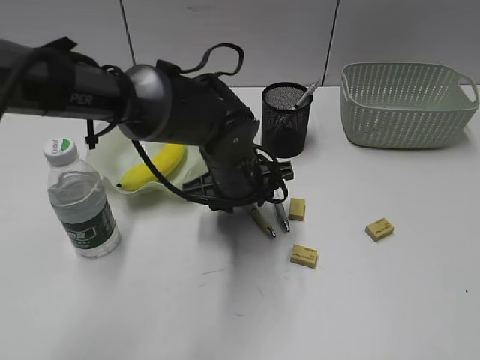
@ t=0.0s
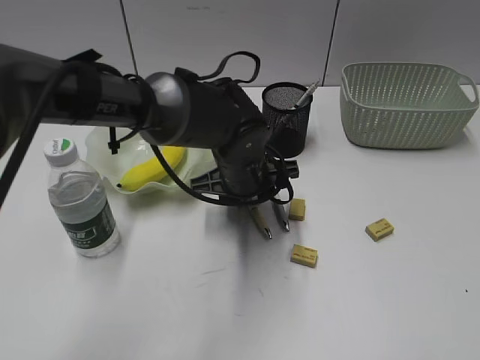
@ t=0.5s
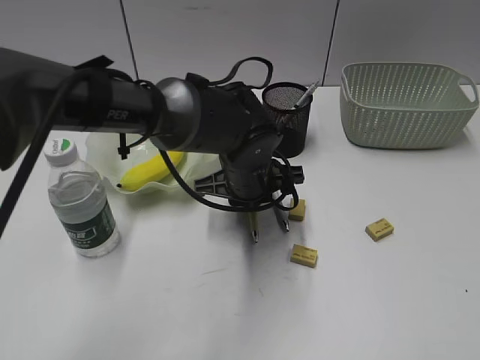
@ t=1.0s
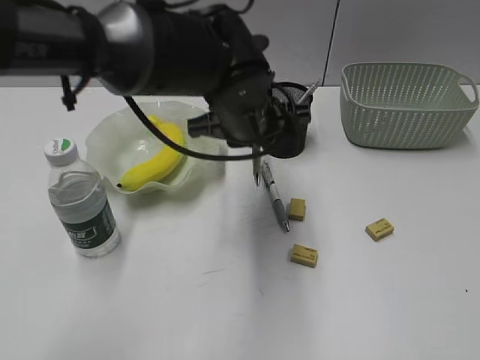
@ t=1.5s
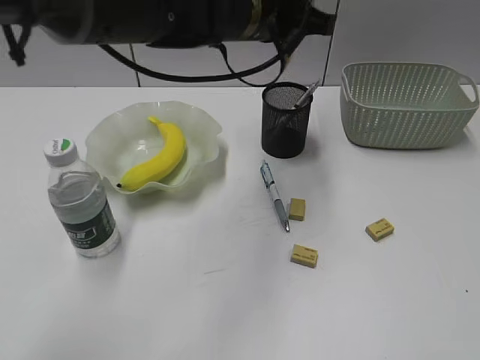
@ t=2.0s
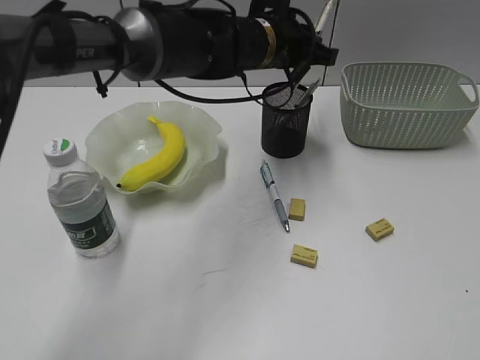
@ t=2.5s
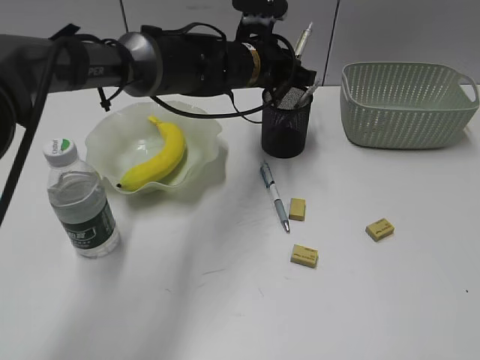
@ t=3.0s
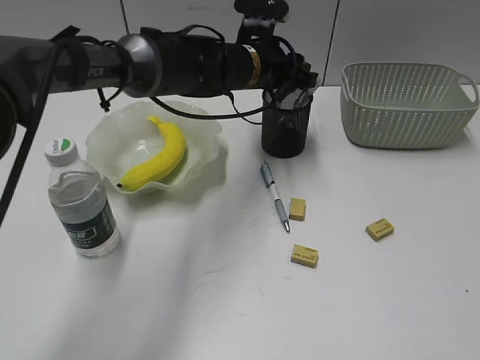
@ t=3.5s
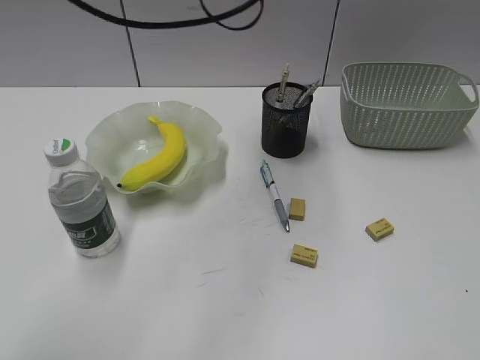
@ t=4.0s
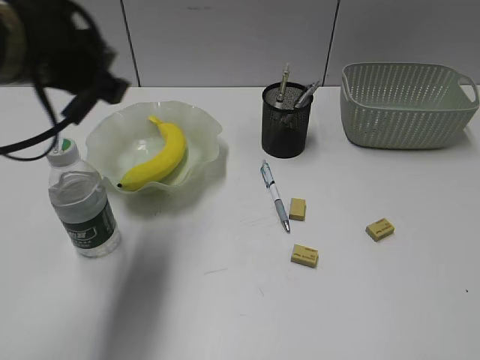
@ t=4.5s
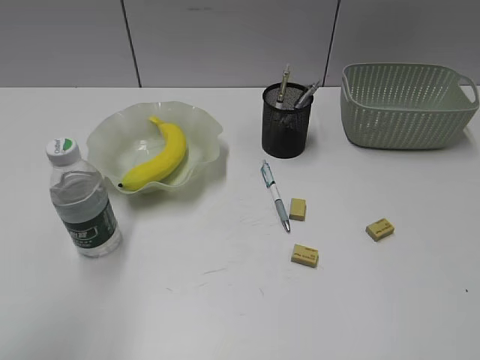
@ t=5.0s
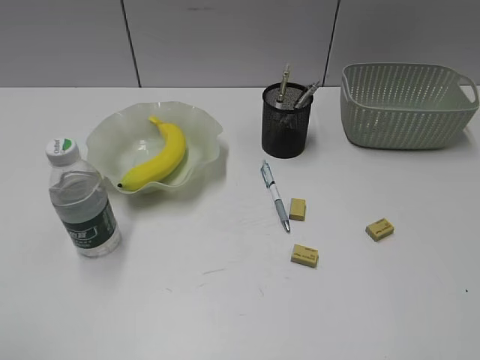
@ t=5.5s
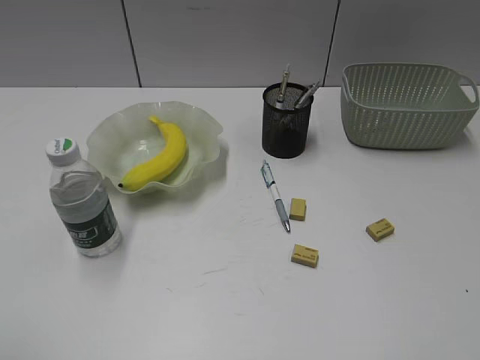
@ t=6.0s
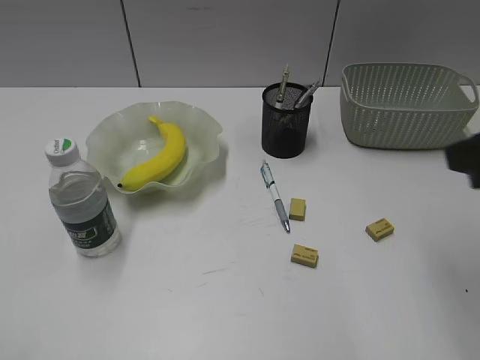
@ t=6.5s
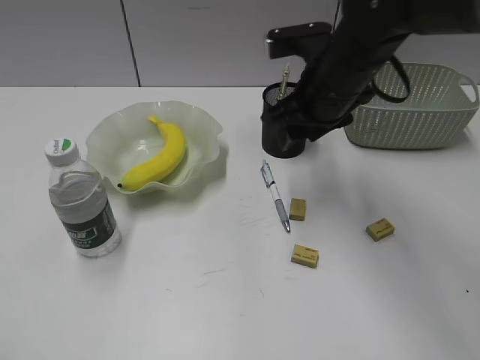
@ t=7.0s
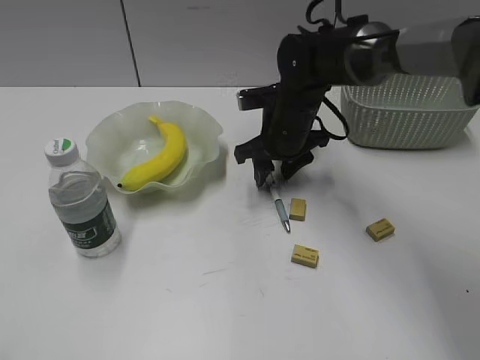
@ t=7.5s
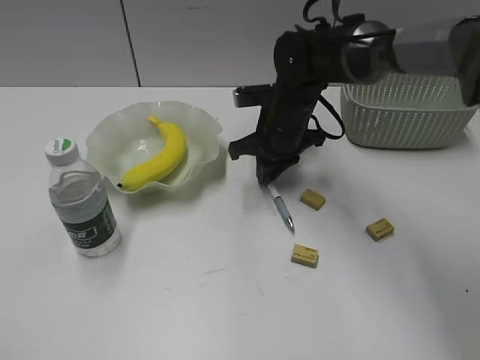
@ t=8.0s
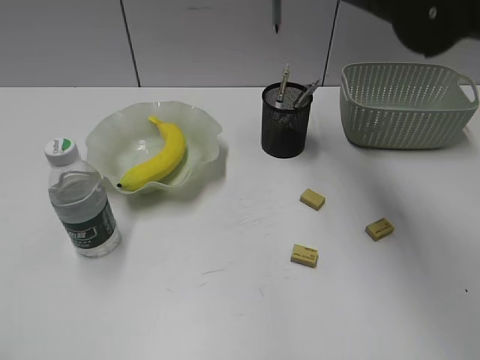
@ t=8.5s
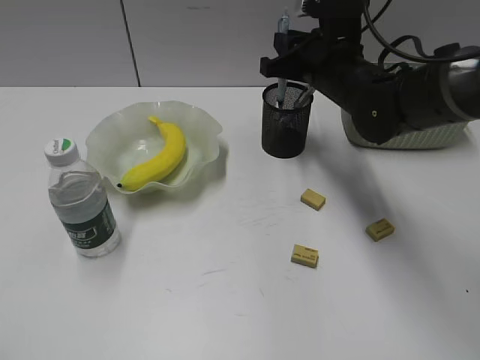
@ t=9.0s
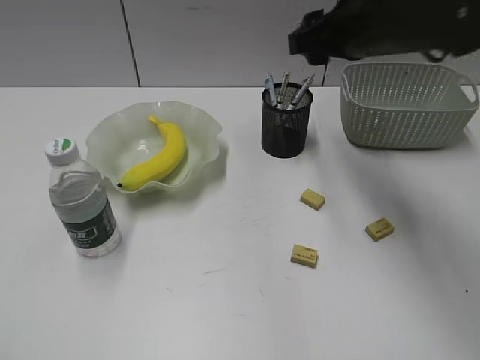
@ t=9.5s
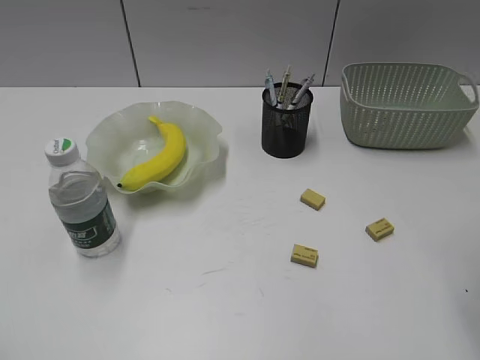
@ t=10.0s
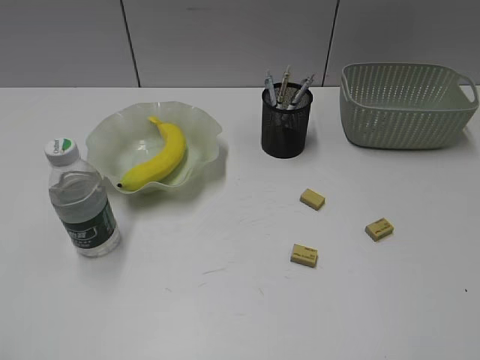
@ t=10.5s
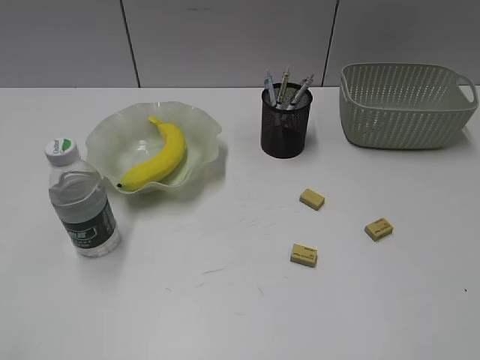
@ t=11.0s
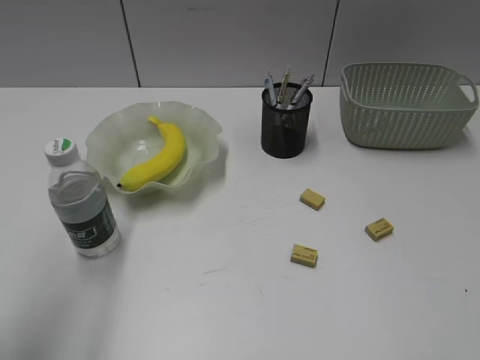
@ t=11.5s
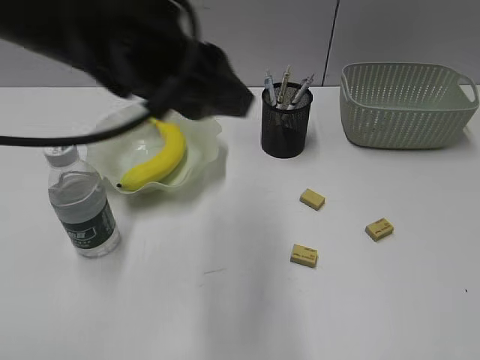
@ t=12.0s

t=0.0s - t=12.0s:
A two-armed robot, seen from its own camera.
Step, t=1.5s - t=3.5s: Place the yellow pen in pen holder with left gripper.
Step, t=4.0s - t=7.5s: Grasp the blue pen with right gripper.
Step, t=8.0s - t=9.0s: Place the blue pen in pen holder with right gripper.
t=0.0s - t=2.0s: The left gripper moves upward, roughly 15 cm, and closes.
t=2.0s - t=4.0s: The left gripper heads upward, covering about 5 cm.
t=4.0s - t=6.0s: The left gripper travels backward and to the left by some 50 cm, and opens its fingers.
t=6.0s - t=8.0s: The right gripper heads forward and to the left, covering roughly 50 cm, and opens and closes again.
t=8.0s - t=10.0s: The right gripper is displaced backward, to the right and upward by about 35 cm, and opens its fingers.
t=10.0s - t=12.0s: The left gripper travels forward and to the right by some 35 cm. Meanwhile the right gripper heads backward and to the right, covering approximately 20 cm.

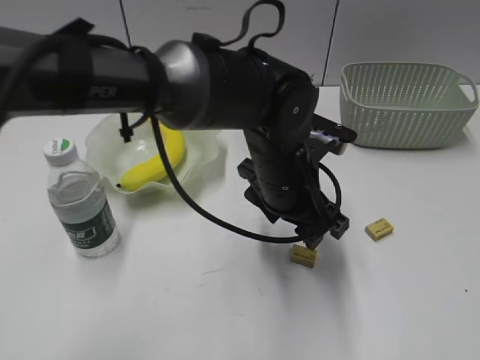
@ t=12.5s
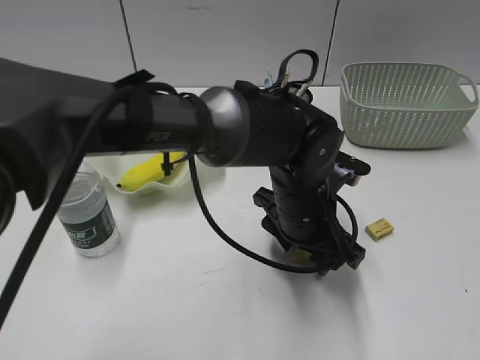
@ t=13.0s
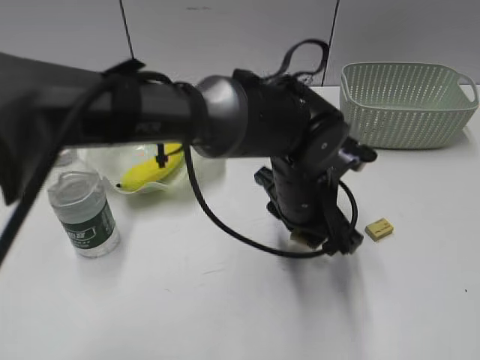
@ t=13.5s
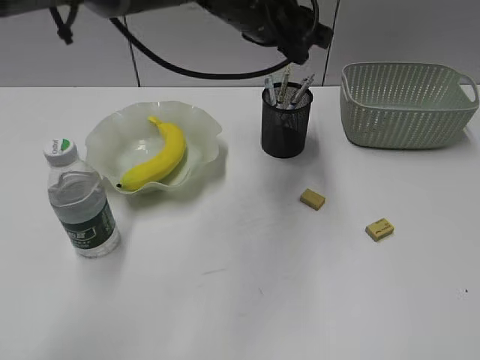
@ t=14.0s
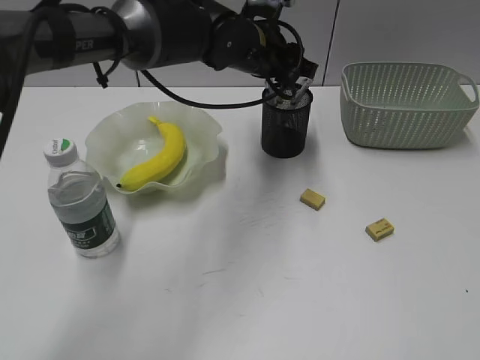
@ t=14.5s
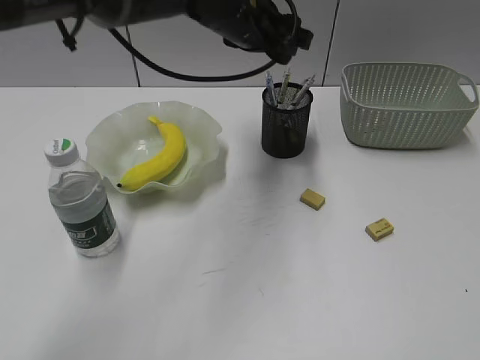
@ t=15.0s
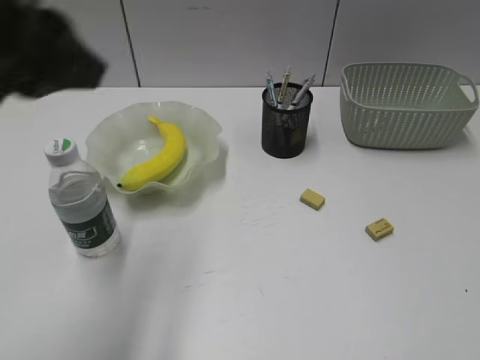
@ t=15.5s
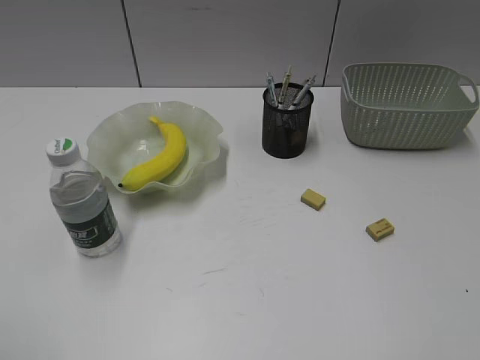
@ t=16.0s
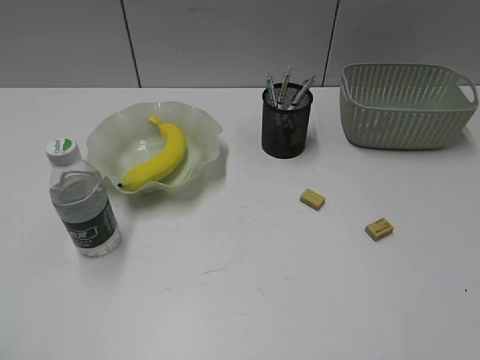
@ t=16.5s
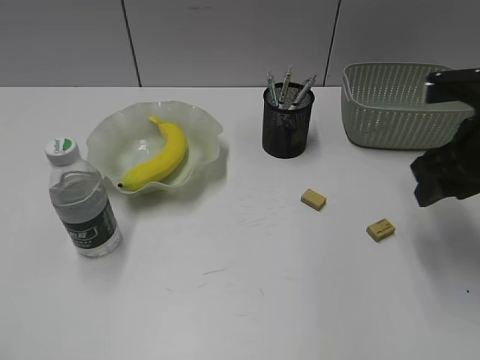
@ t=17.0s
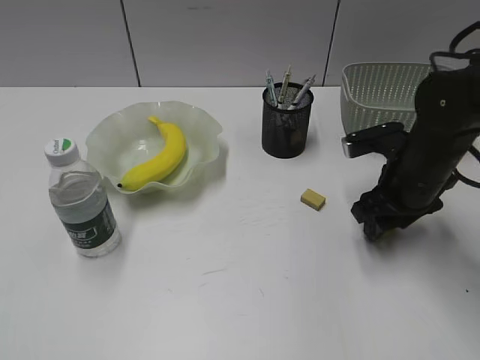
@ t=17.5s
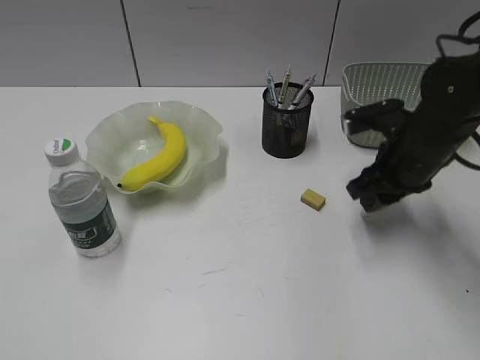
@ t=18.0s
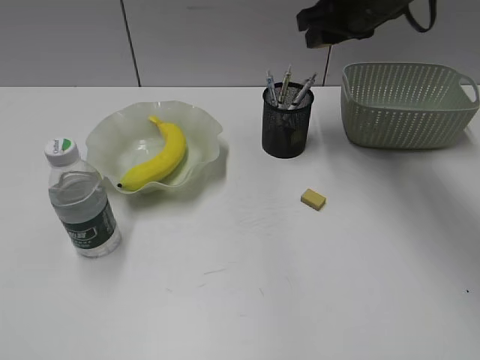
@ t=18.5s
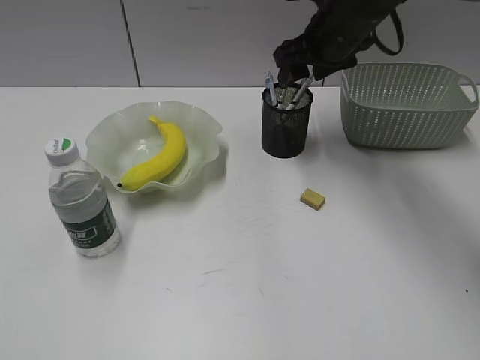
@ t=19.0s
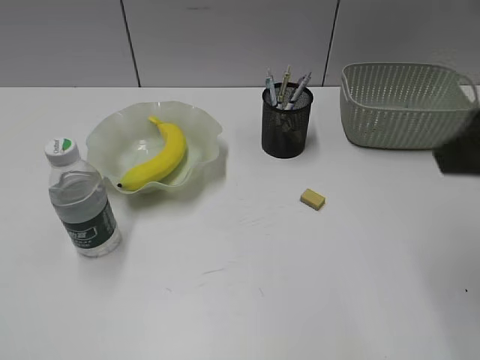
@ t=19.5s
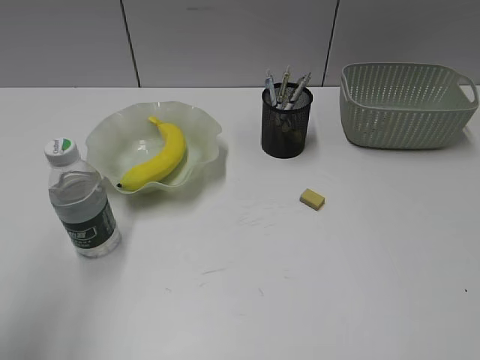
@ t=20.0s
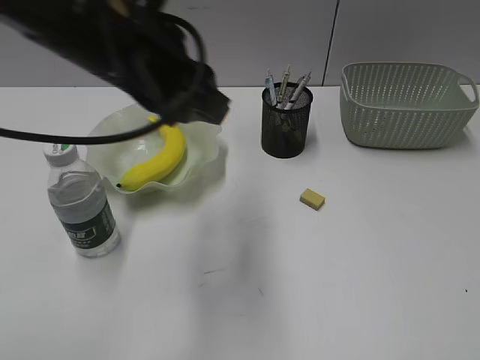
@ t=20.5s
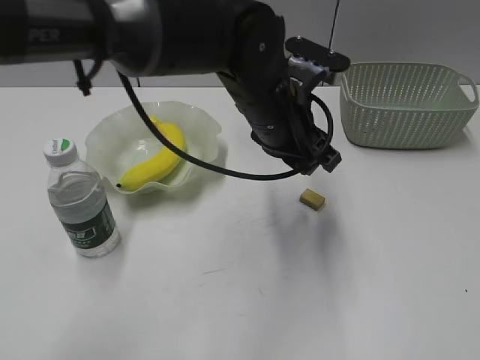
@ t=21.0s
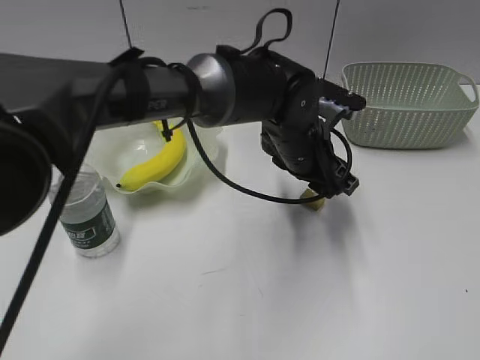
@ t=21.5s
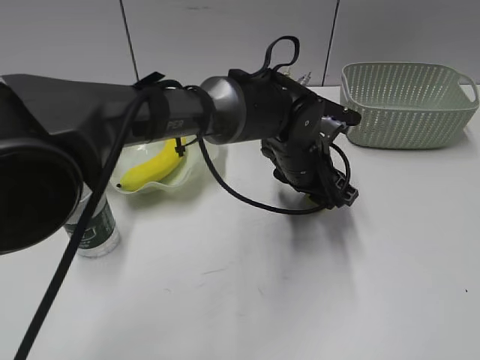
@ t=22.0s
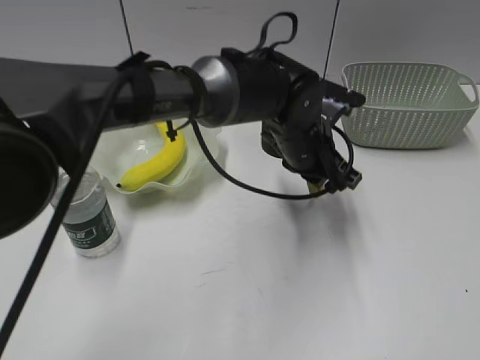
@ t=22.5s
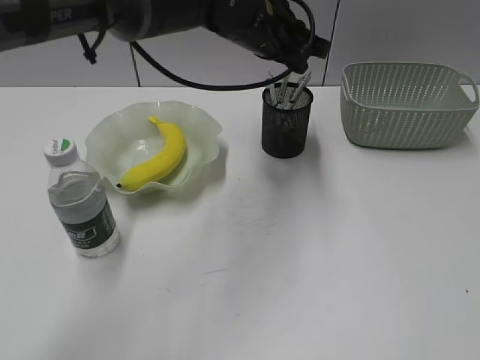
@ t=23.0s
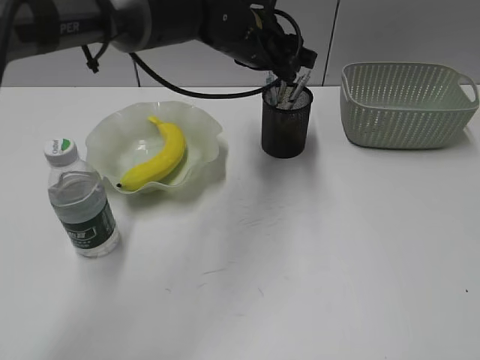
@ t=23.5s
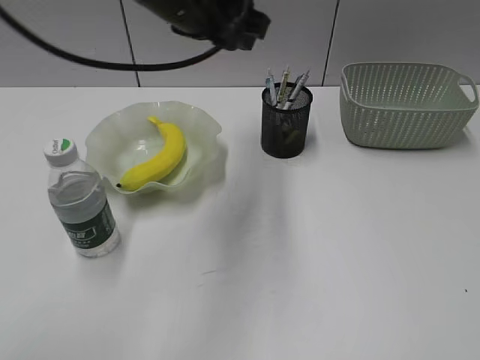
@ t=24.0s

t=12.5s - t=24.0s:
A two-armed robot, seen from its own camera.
Step, t=13.5s - t=14.5s: Place the eraser in pen holder with left gripper.
Step, t=15.0s - t=17.5s: Grasp the eraser with right gripper.
Step, t=18.0s - t=19.0s: Place the eraser in pen holder with right gripper.
Step, t=19.5s - t=22.0s: Grasp the eraser with left gripper.
Step, t=22.5s - t=23.5s: Place the eraser in pen holder with left gripper.
t=12.5s - t=14.5s: The left gripper shifts some 15 cm forward and upward.
t=14.5s - t=16.5s: The right gripper goes about 5 cm forward. The left gripper heads backward and to the left, covering about 60 cm.
t=16.5s - t=18.5s: The right gripper is displaced forward by roughly 40 cm, and opens and closes again.
t=18.5s - t=20.0s: The right gripper shifts approximately 40 cm backward, and opens; the left gripper travels forward by about 15 cm.
t=20.0s - t=22.0s: The left gripper heads to the right, forward and downward, covering approximately 50 cm.
t=22.0s - t=24.0s: The left gripper moves upward and to the left, some 25 cm, and closes, then opens again.

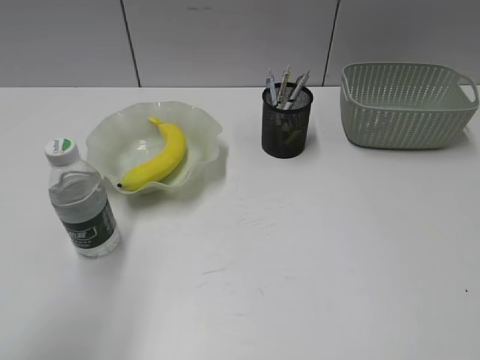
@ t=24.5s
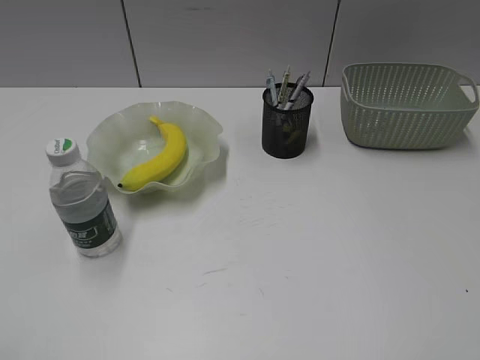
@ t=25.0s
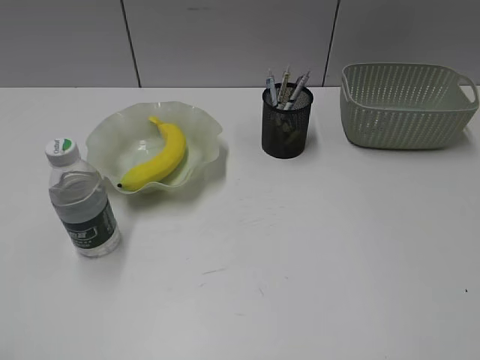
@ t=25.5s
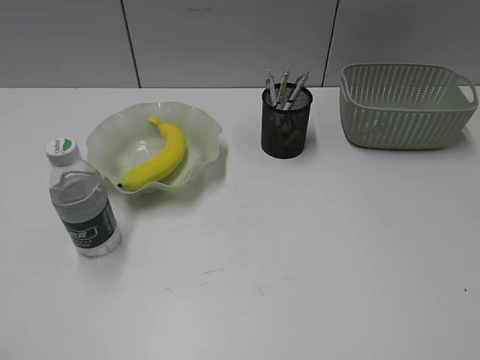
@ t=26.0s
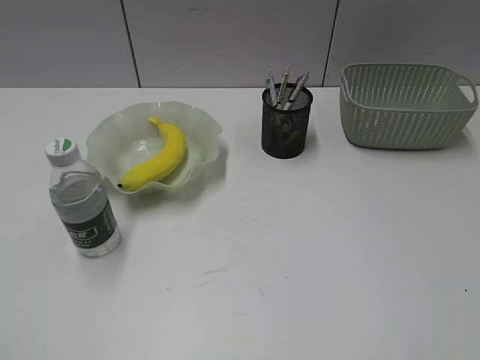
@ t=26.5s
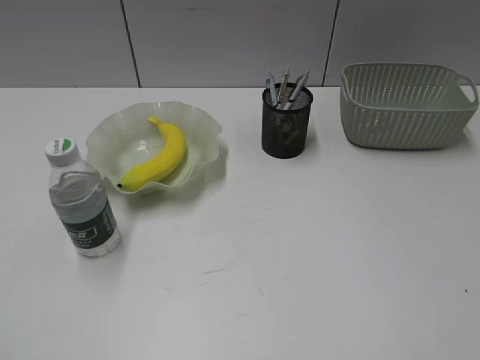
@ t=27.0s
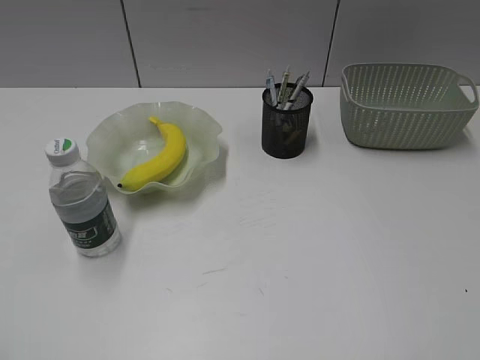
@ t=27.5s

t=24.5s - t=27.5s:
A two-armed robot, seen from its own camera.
t=24.5s - t=26.0s: The left gripper goes some 15 cm backward, to the left and downward.
